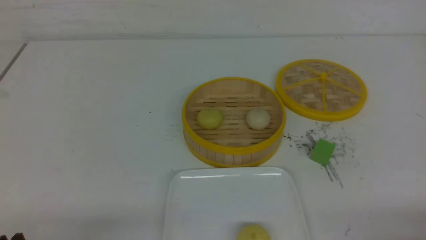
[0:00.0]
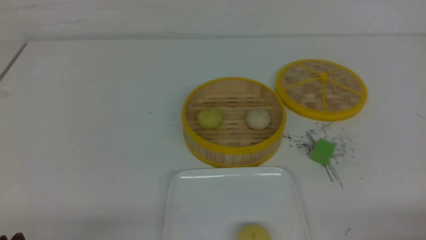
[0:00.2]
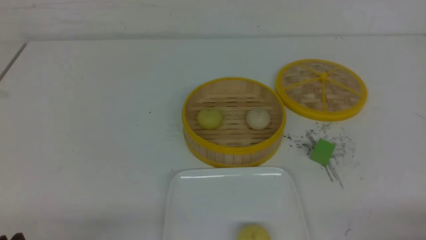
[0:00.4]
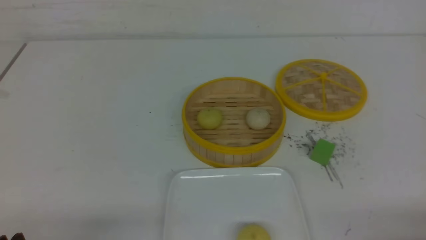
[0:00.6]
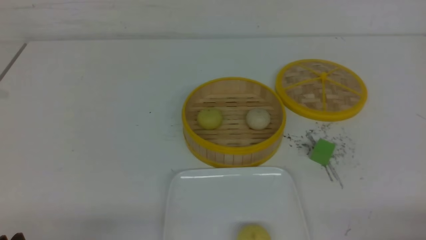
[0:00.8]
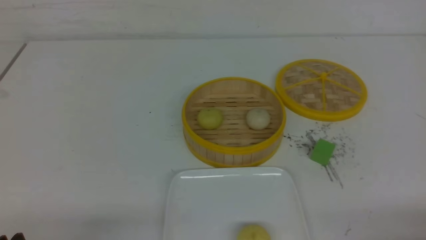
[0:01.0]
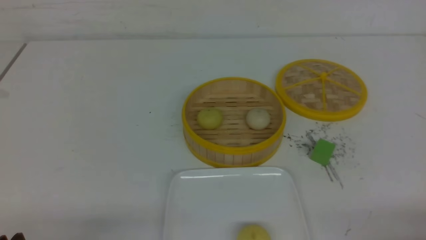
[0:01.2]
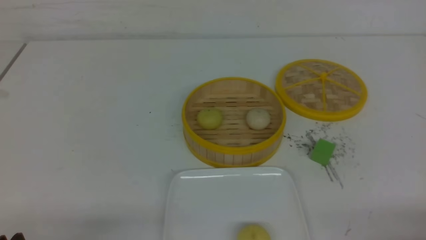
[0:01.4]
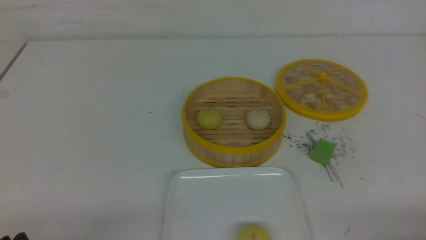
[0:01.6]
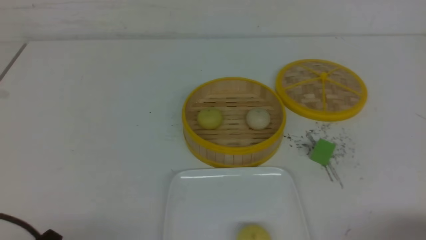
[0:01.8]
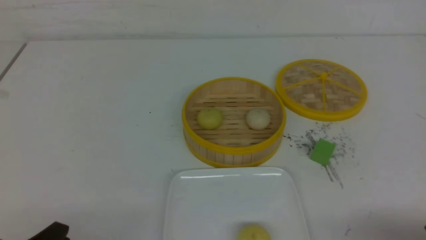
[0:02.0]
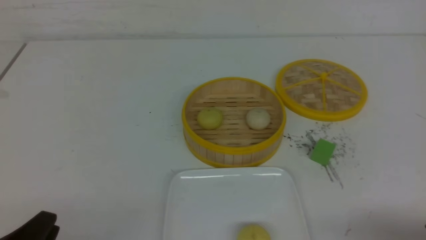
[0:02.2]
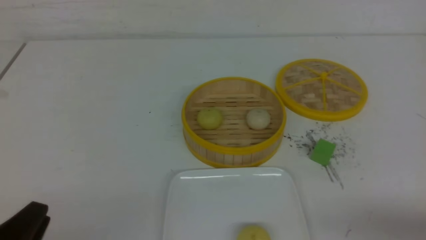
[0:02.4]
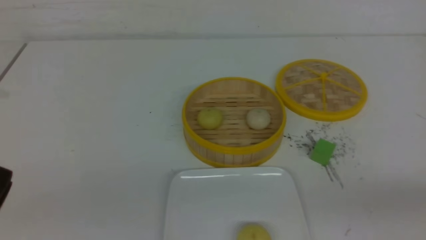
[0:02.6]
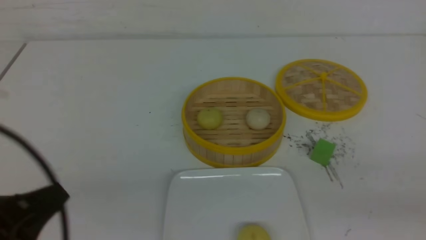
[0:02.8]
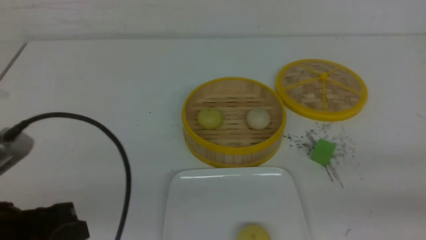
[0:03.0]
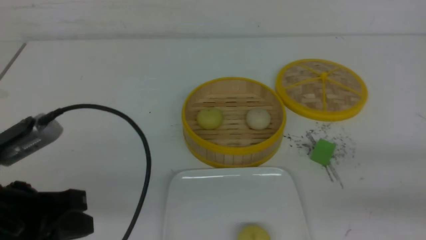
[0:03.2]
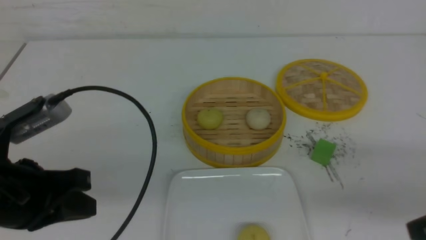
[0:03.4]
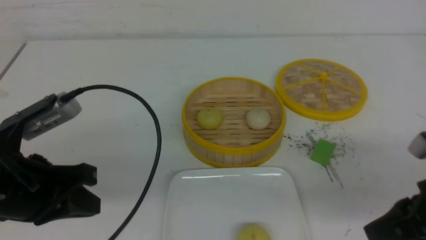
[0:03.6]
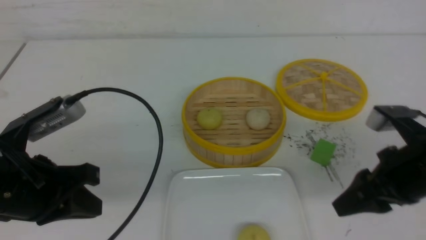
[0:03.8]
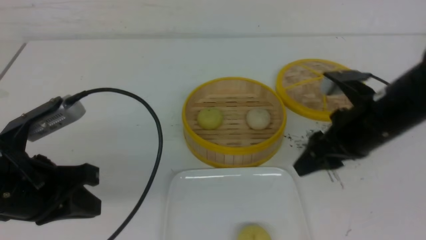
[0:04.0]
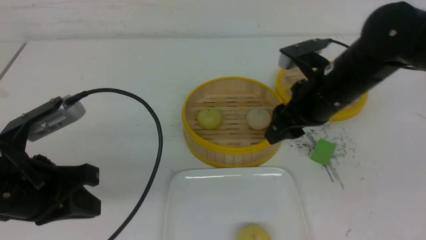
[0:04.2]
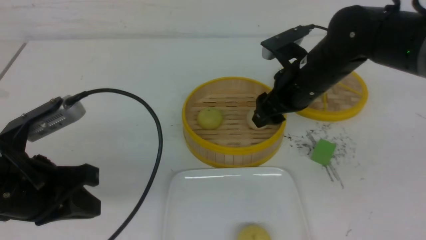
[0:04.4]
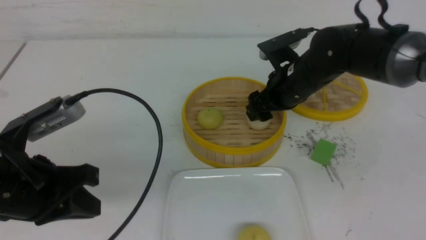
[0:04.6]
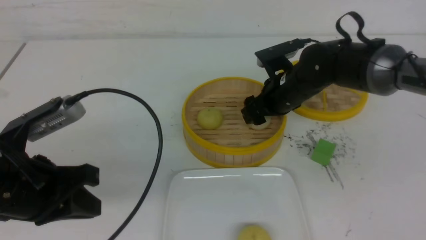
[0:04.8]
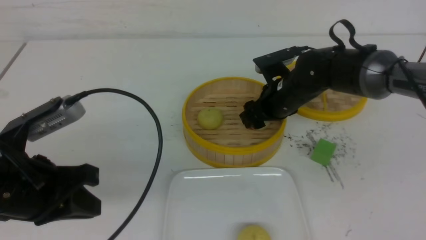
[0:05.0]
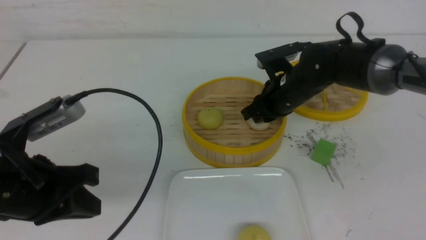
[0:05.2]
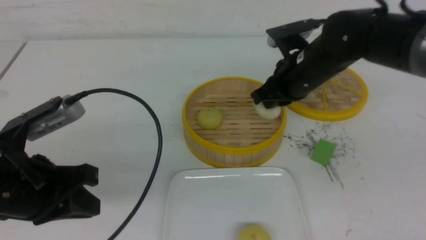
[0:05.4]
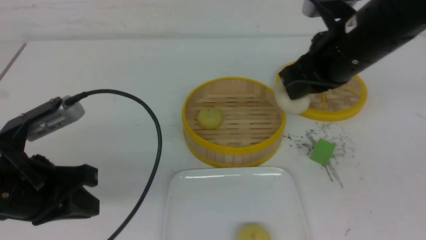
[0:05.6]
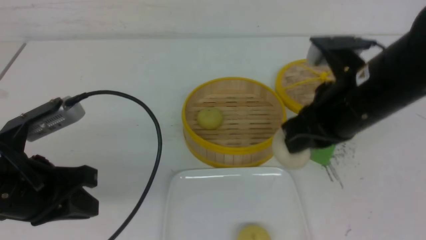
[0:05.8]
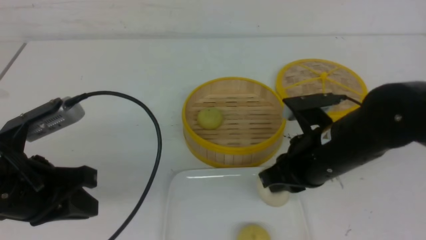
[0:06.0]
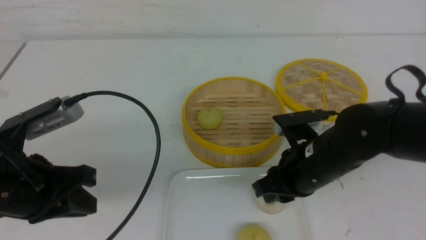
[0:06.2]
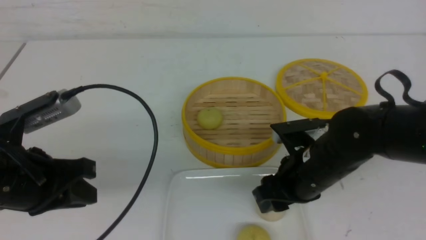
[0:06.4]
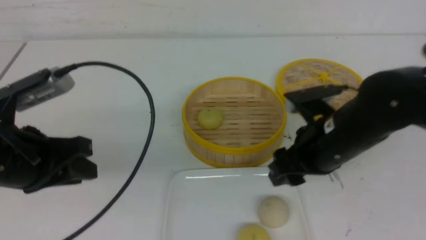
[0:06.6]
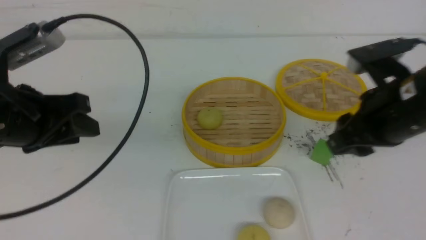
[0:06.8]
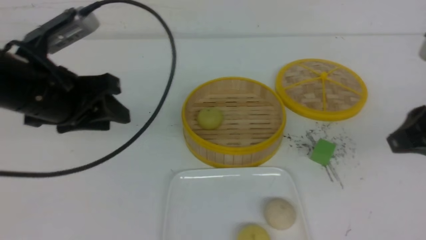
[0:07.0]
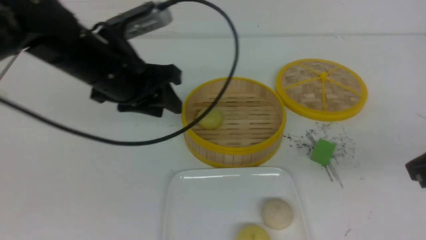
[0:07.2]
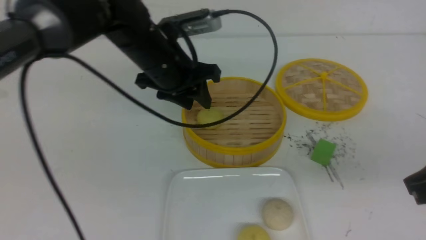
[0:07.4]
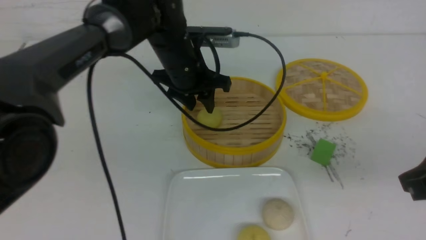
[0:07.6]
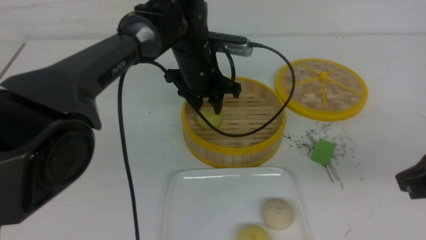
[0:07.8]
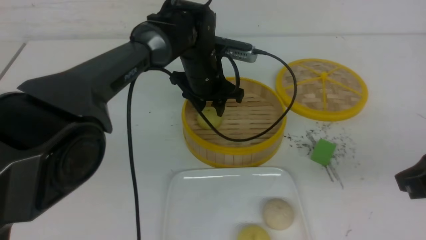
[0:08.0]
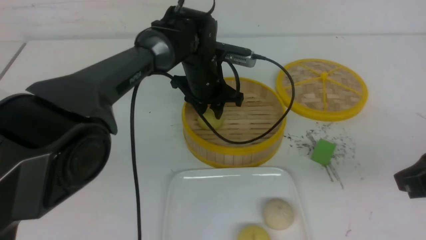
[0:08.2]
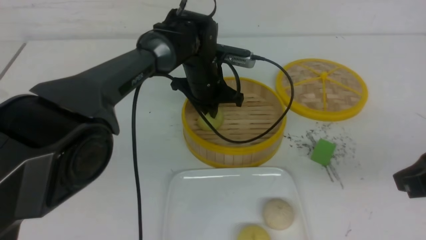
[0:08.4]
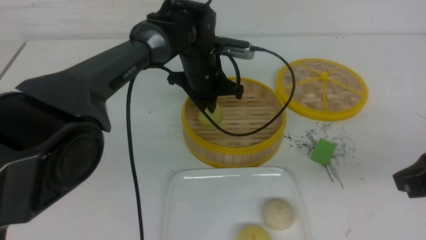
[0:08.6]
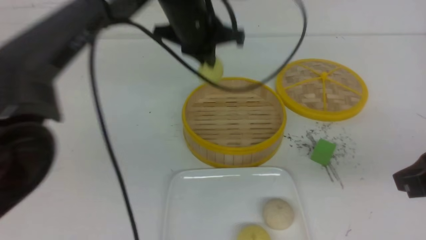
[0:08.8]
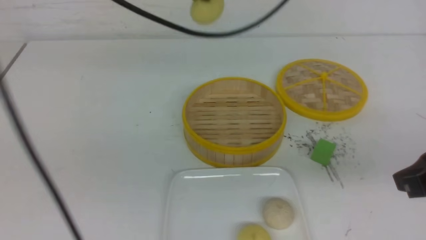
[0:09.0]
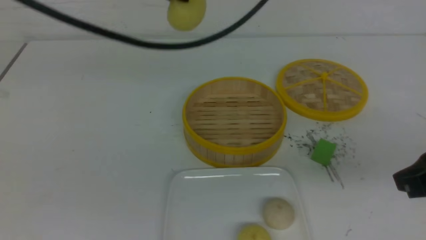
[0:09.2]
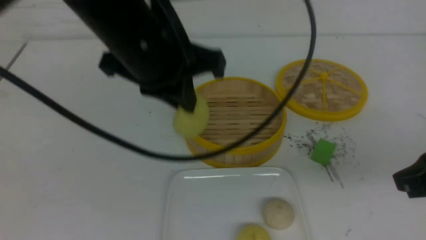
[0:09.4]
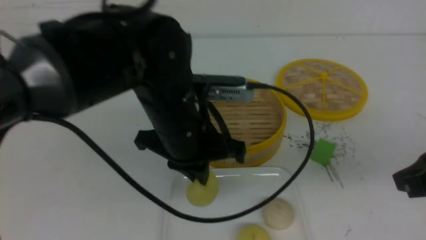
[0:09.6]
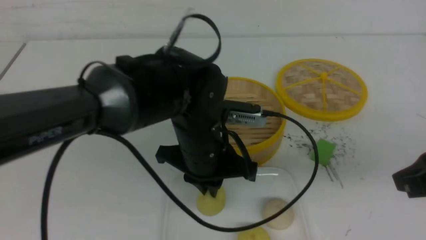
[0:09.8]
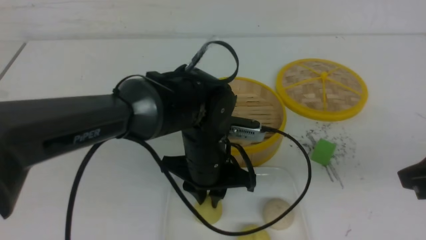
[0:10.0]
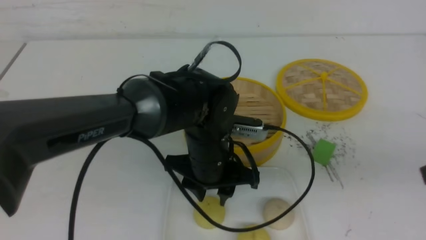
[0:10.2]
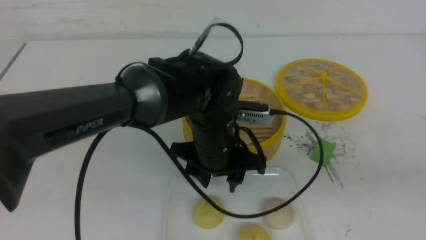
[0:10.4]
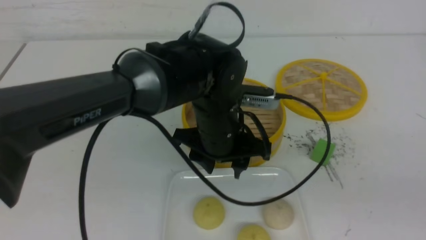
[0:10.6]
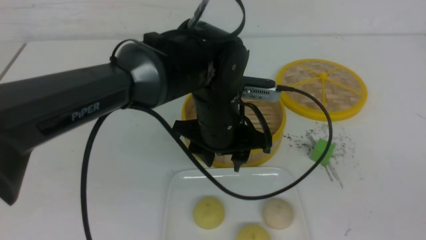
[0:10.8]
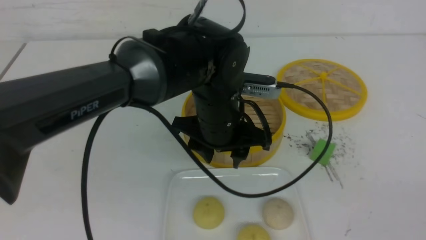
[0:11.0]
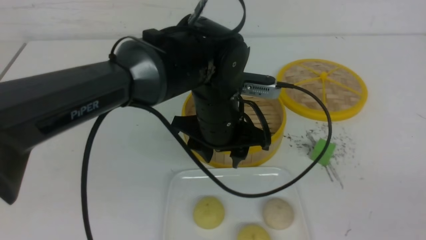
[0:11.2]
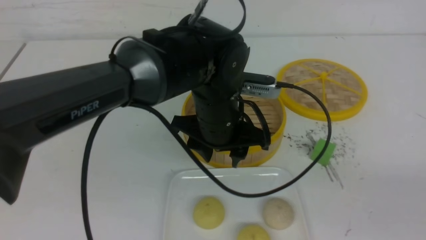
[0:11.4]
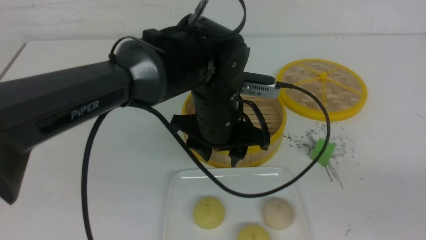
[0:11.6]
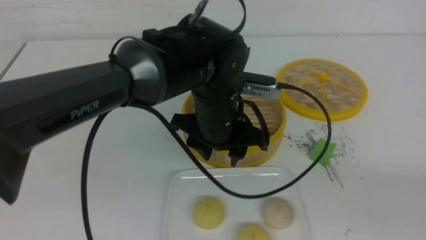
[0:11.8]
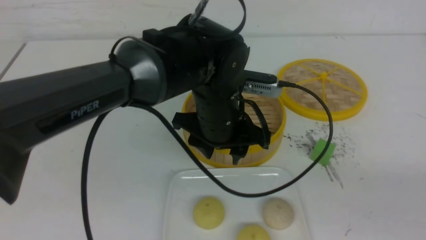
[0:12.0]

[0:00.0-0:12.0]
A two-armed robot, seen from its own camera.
Step, 0:00.0 to 0:05.2: use the right arm to grab the steamed stuffed bun that is closest to it.
Step, 0:05.4 to 0:06.4: use the right arm to put the steamed stuffed bun into the plate.
Step, 0:06.6 to 0:08.4: use the left arm to grab the steamed stuffed bun that is closest to it.
Step, 0:08.6 to 0:10.2: use the left arm to put the steamed stuffed bun into the plate.
0:01.6 to 0:03.0: The left gripper travels upward and forward by roughly 10 cm, and closes up.
0:03.0 to 0:04.4: The left gripper travels forward by some 5 cm, while the right gripper goes some 30 cm forward and to the left, and opens.
0:04.4 to 0:06.0: The right gripper shifts approximately 10 cm backward, and closes up.
0:06.0 to 0:07.6: The left gripper heads forward and to the right, covering roughly 30 cm, and opens its fingers; the right gripper goes about 15 cm to the right, backward and upward, and opens, then closes again.
0:07.6 to 0:09.0: The left gripper travels upward and backward by roughly 20 cm, and closes up.
0:09.0 to 0:10.4: The right gripper shifts approximately 10 cm backward, while the left gripper moves downward, about 20 cm, and opens.
0:10.4 to 0:12.0: The right gripper shifts about 10 cm downward.

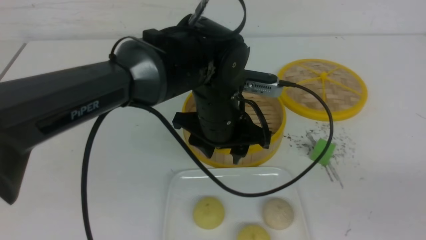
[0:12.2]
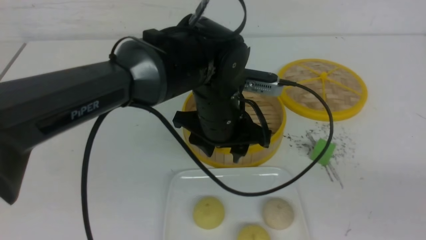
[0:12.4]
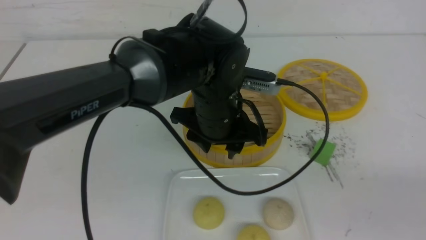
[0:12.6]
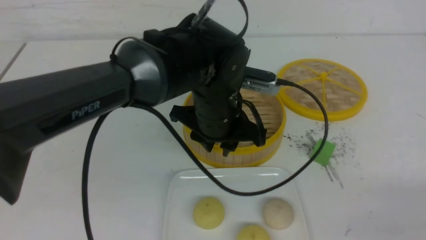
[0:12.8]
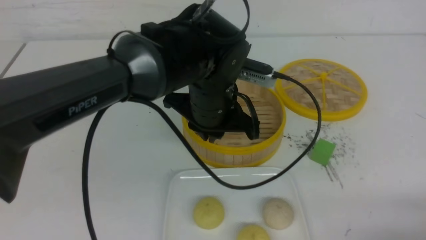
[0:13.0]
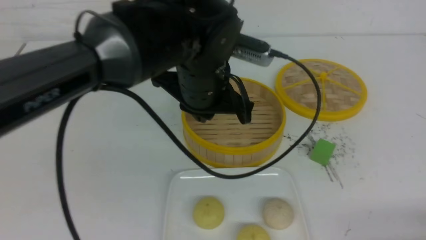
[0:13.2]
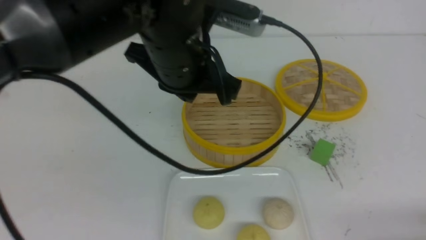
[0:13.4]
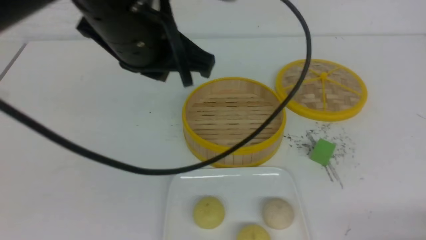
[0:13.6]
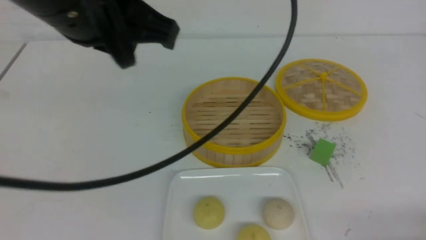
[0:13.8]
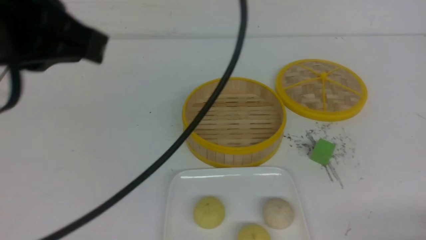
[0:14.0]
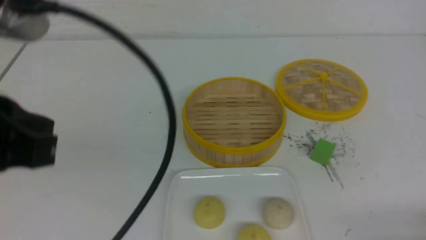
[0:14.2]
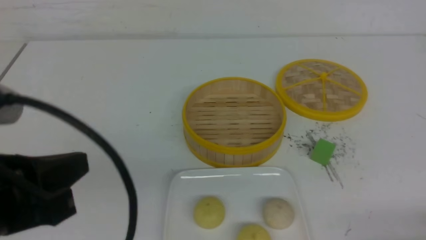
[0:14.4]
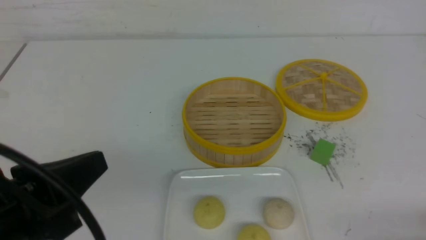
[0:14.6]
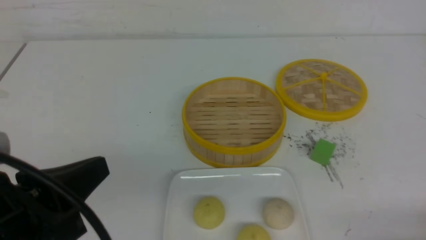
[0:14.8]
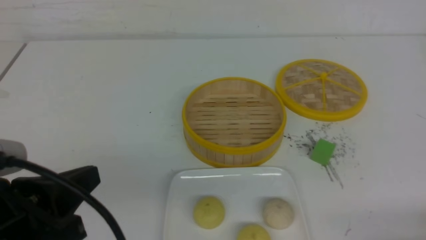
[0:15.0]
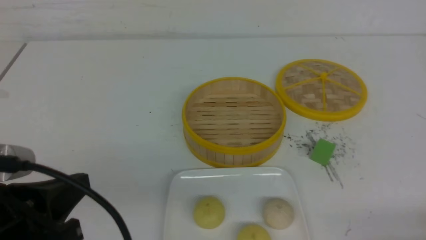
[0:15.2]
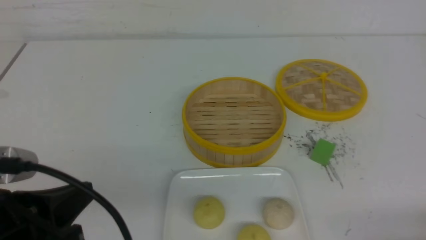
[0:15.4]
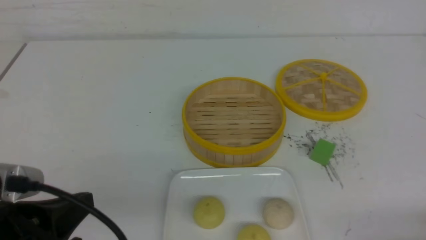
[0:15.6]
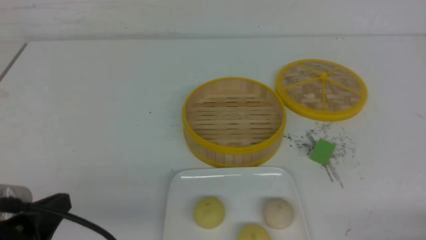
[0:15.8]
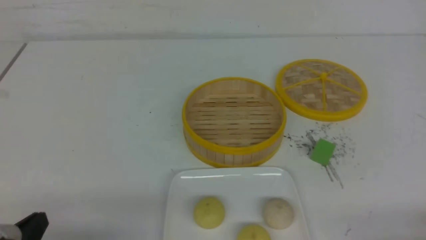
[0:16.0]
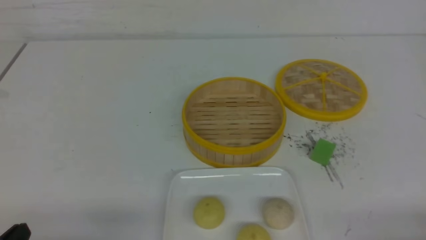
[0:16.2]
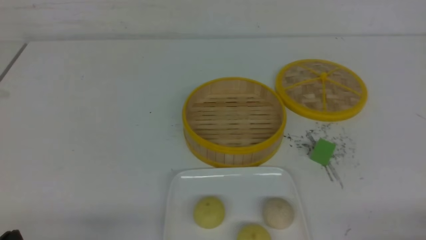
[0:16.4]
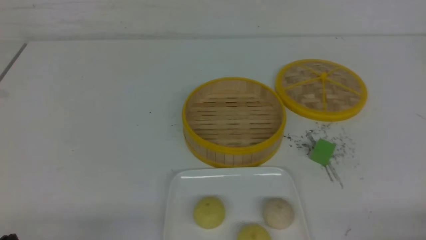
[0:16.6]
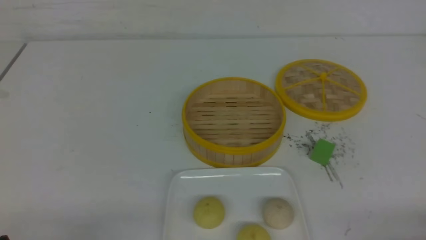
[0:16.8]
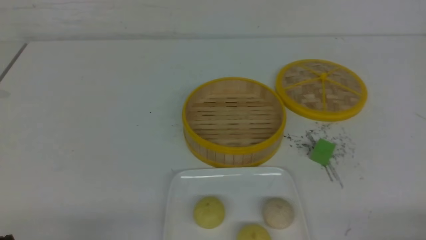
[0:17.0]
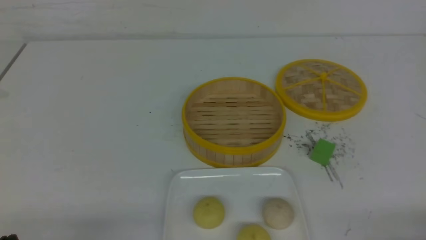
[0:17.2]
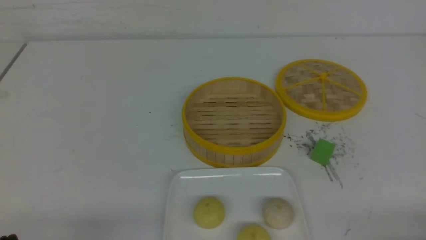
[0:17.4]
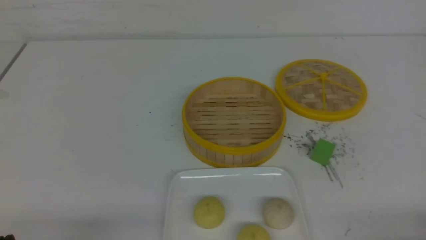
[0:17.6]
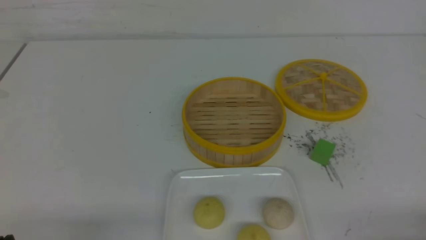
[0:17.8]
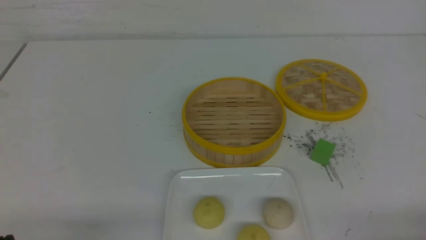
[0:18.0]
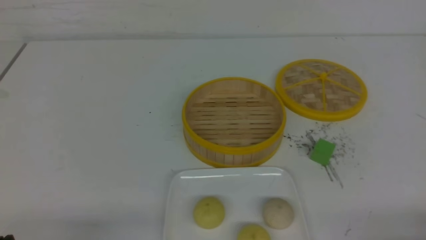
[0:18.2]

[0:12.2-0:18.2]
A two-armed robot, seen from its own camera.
0:12.2 to 0:13.8: The left gripper travels upward, to the left and backward by approximately 25 cm, and closes up, while the right gripper travels downward by approximately 10 cm.
0:13.8 to 0:15.2: The left gripper travels downward, backward and to the left by roughly 20 cm.
0:15.2 to 0:16.6: The left gripper shifts roughly 15 cm downward and to the left.
0:16.6 to 0:18.2: Both grippers stay put.
